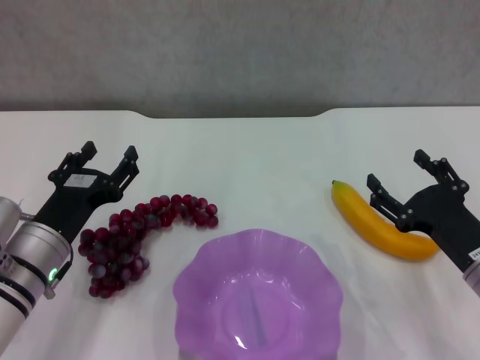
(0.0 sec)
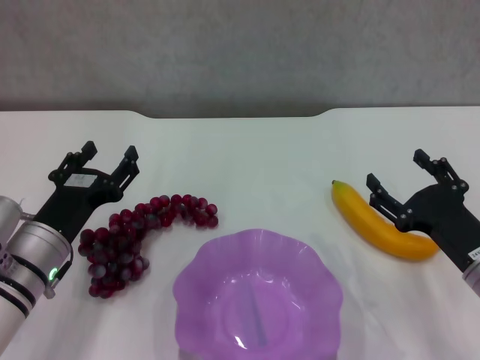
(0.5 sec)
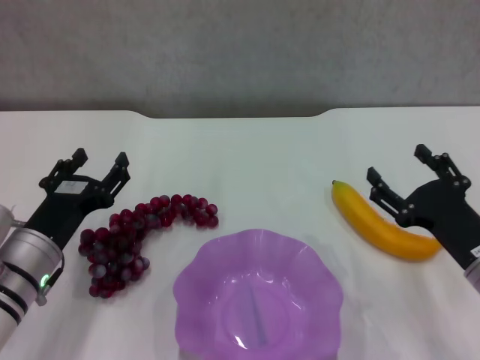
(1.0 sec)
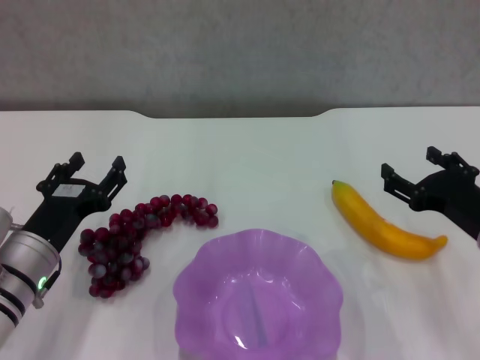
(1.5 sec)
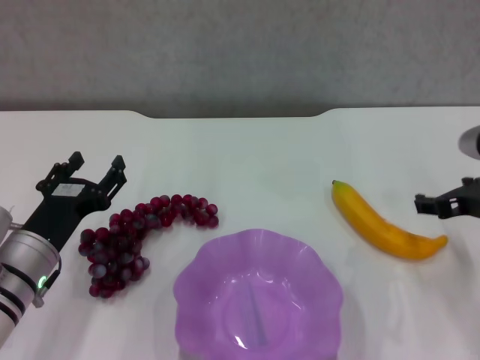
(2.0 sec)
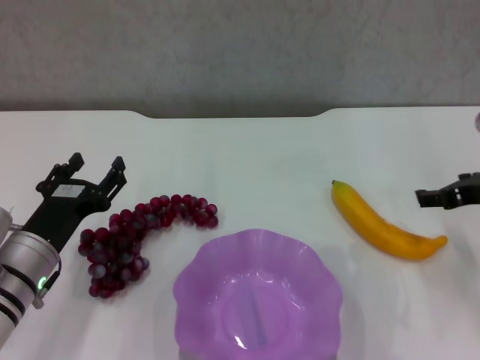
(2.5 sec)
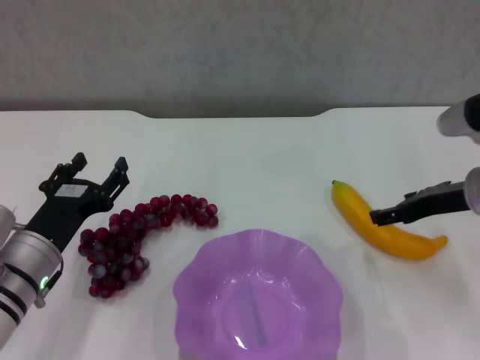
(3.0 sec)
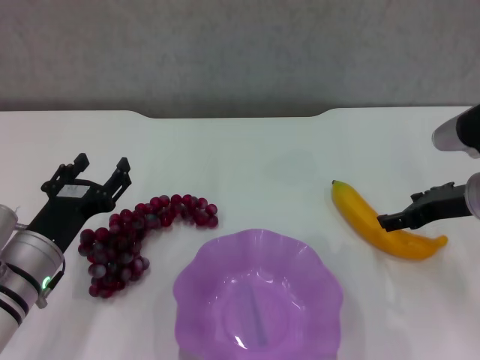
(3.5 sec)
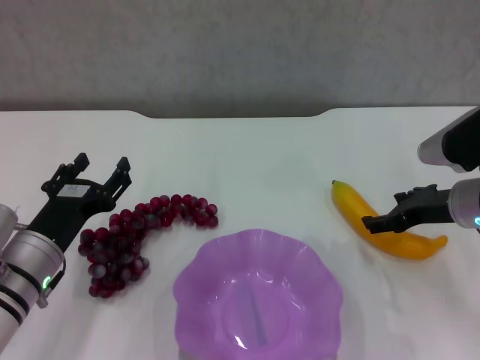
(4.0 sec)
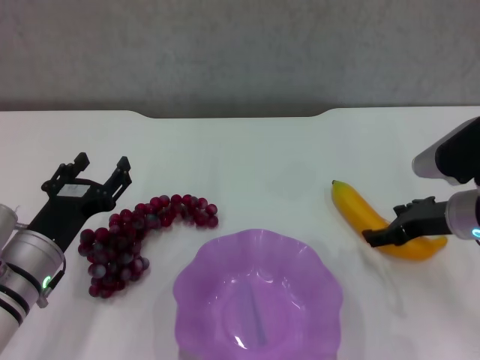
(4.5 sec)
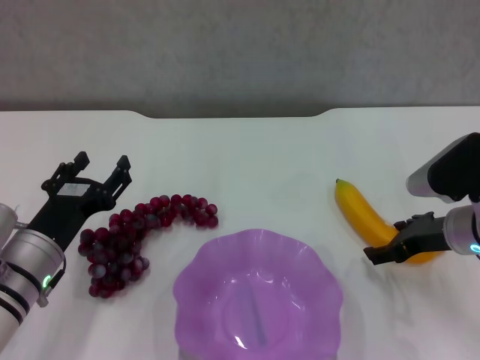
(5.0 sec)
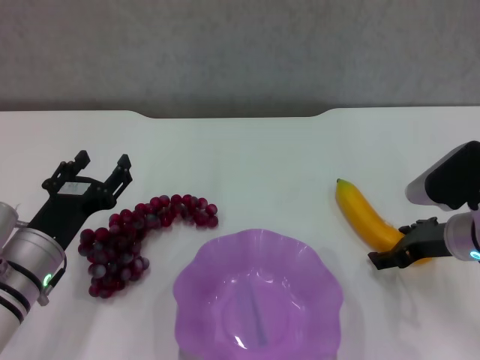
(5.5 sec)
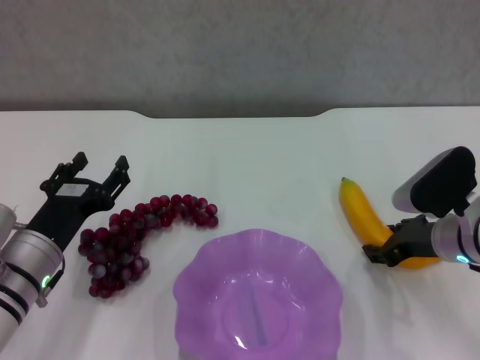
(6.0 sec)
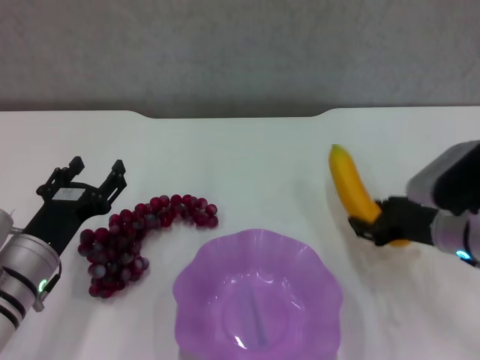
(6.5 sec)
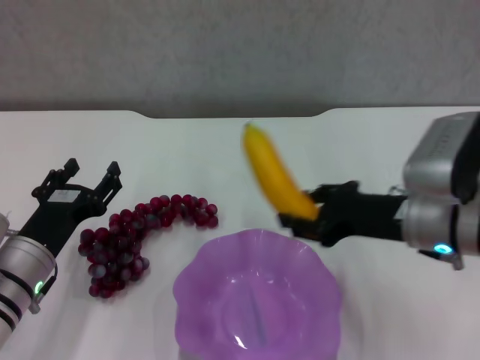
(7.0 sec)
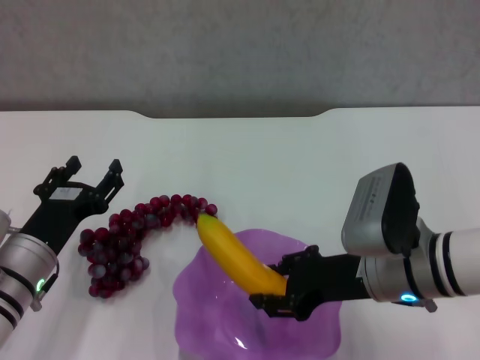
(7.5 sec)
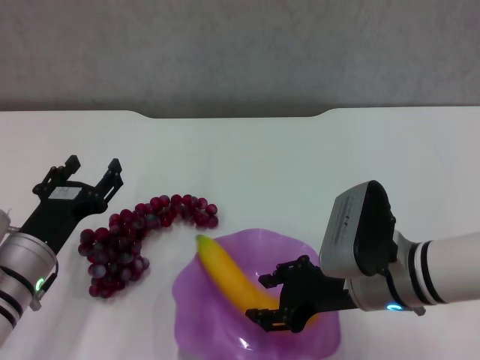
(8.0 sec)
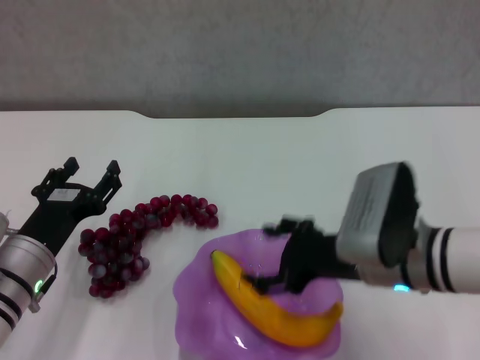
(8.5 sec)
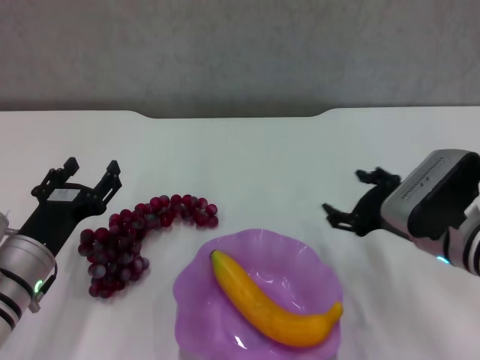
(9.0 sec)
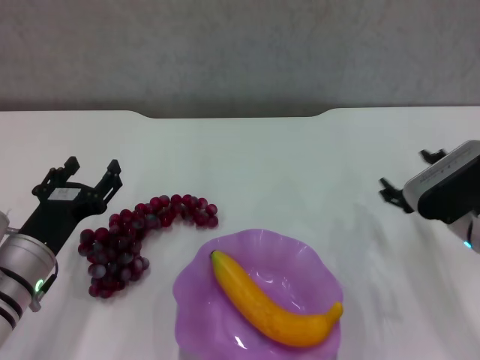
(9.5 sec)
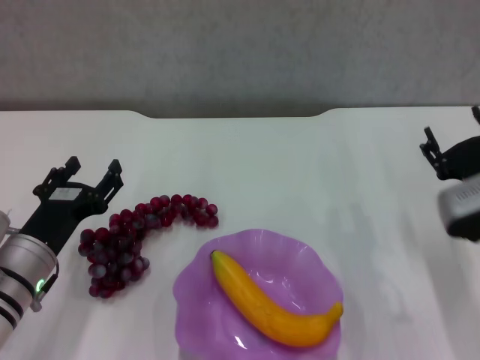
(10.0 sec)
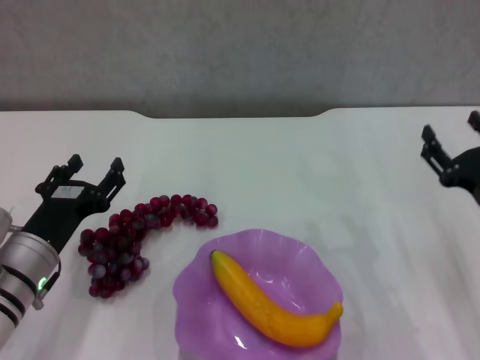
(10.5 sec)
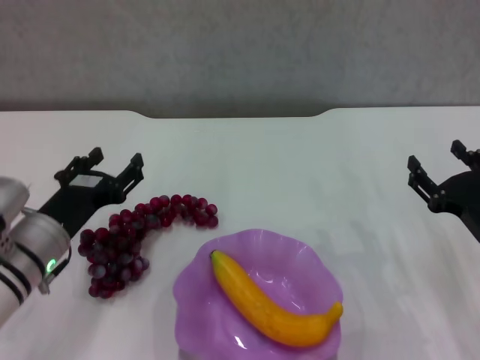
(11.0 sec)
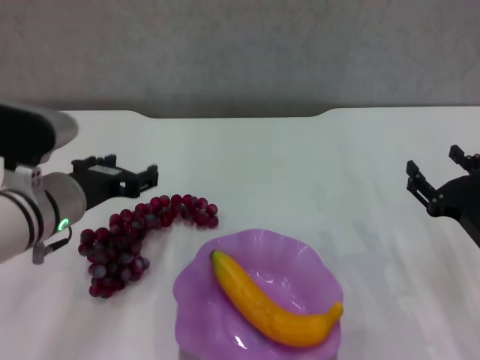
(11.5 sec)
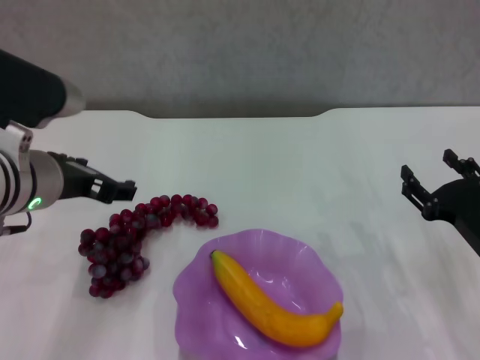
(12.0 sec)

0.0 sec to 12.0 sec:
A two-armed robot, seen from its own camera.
Step, 0.0 sec to 6.0 sec: Grasp the banana with right gripper.
Step, 6.5 sec to 8.5 sec: Place the banana in the purple plate with right gripper.
0.0 sec to 2.0 sec: The right gripper heads upward and forward, covering roughly 10 cm.
2.0 sec to 4.0 sec: The right gripper ends up approximately 5 cm from where it was.
4.0 sec to 6.0 sec: The grippers stay close to where they were, moving slightly.
6.0 sec to 8.0 sec: The right gripper is displaced to the left and backward by roughly 10 cm, and closes.
8.0 sec to 10.0 sec: The right gripper is displaced to the right by approximately 10 cm, and opens.
10.0 sec to 12.0 sec: The left gripper is displaced upward by some 15 cm.

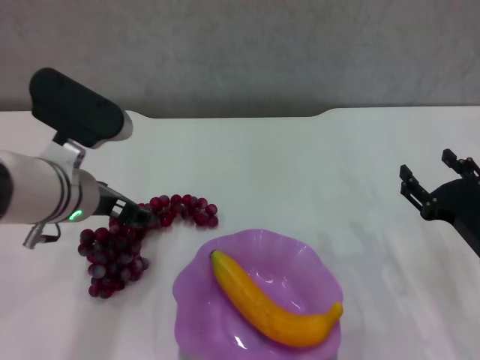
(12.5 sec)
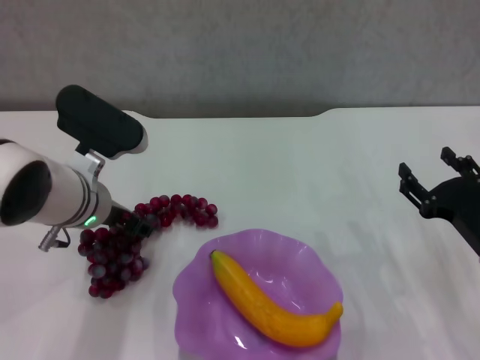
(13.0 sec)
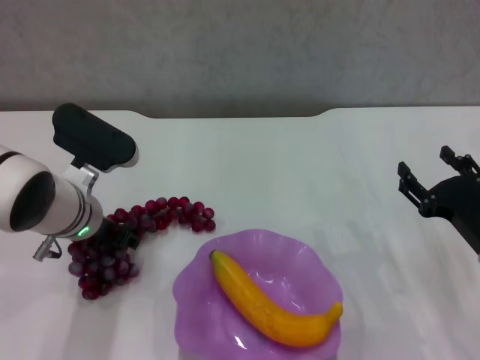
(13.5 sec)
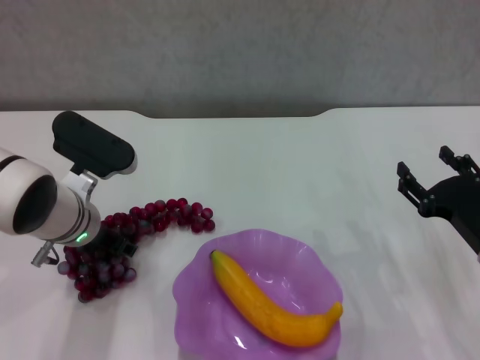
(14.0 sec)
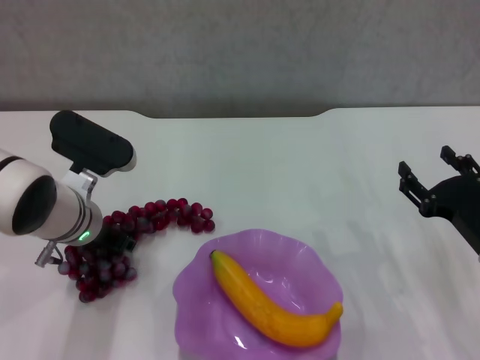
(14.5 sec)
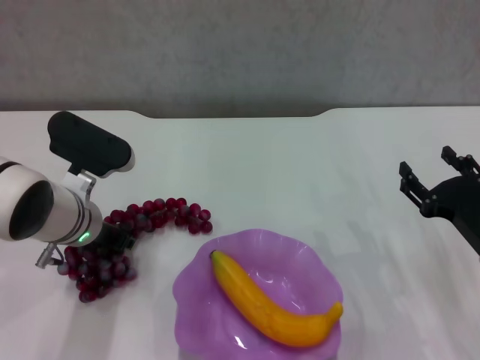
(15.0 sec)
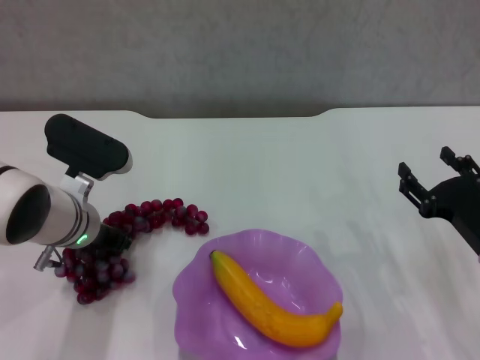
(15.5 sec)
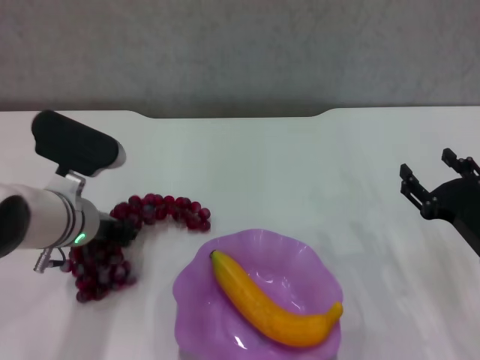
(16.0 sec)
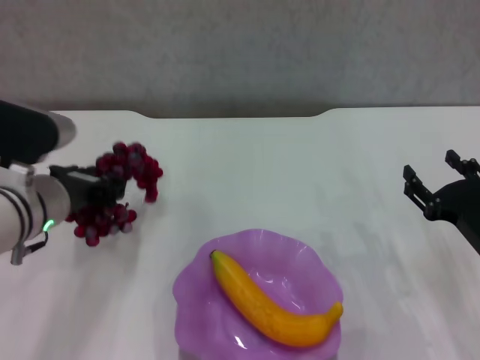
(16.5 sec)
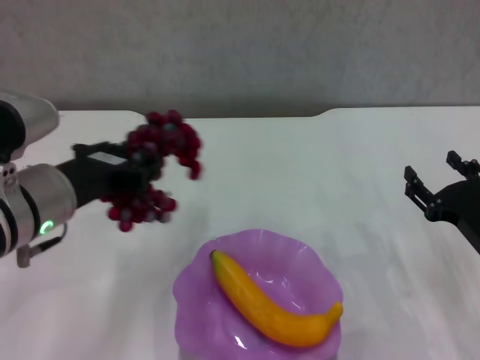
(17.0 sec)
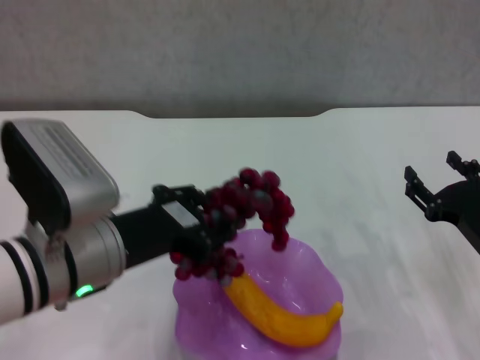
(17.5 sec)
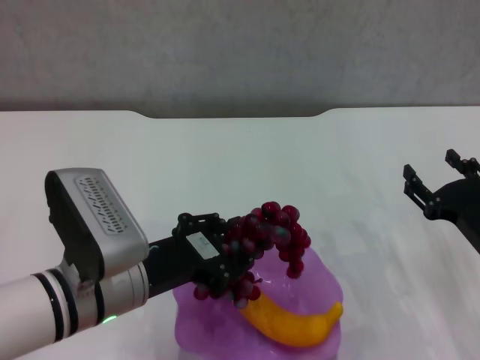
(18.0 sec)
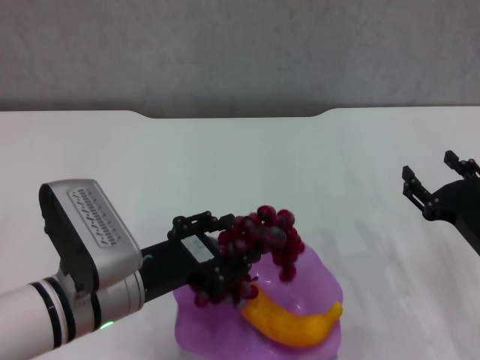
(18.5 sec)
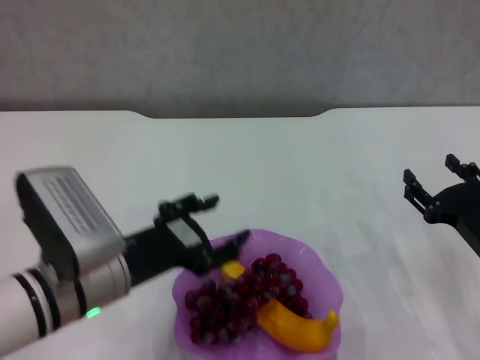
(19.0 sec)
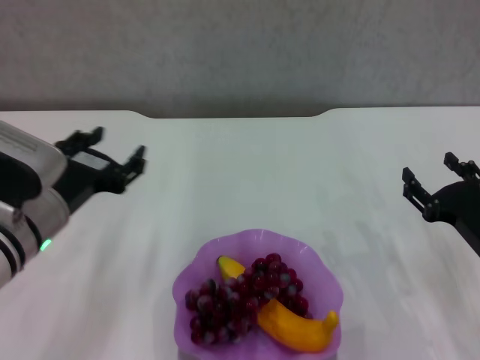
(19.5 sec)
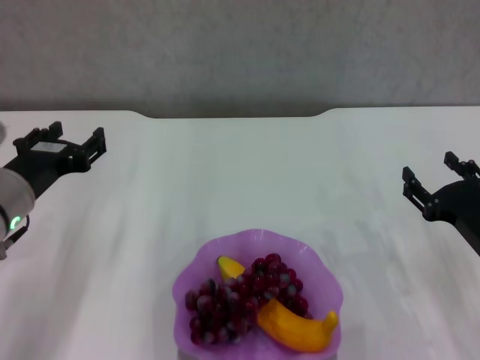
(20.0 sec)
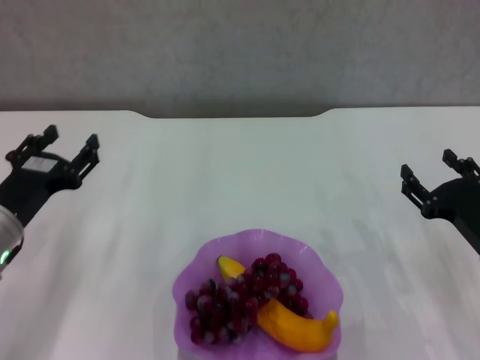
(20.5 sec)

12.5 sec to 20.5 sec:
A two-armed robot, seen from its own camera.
Step, 14.5 sec to 19.0 sec: Place the grape in the purple plate with left gripper.
12.5 sec to 14.5 sec: The left gripper heads downward, covering some 5 cm.
14.5 sec to 16.5 sec: The left gripper moves about 5 cm, and closes up.
16.5 sec to 18.5 sec: The left gripper heads backward and to the right, covering roughly 10 cm.
18.5 sec to 20.5 sec: The left gripper moves to the left, some 10 cm, and opens its fingers.
